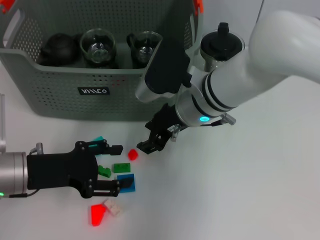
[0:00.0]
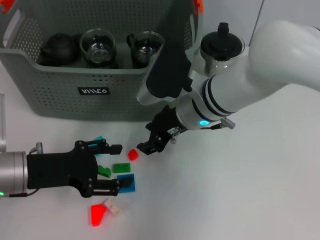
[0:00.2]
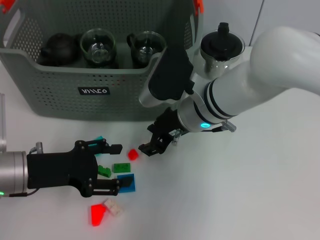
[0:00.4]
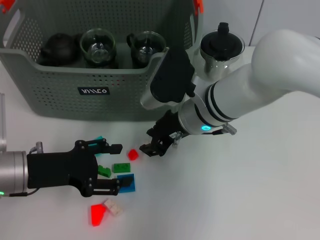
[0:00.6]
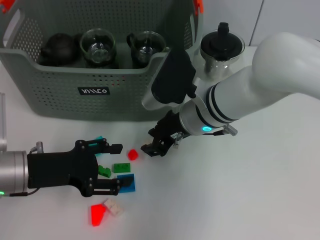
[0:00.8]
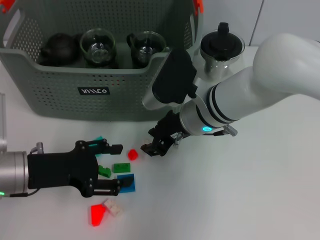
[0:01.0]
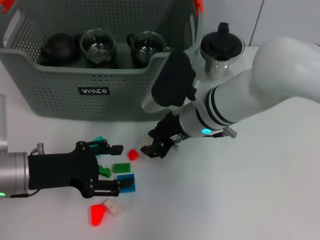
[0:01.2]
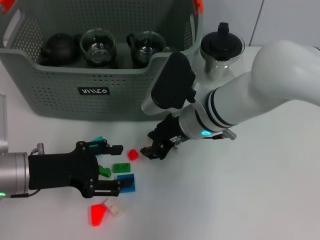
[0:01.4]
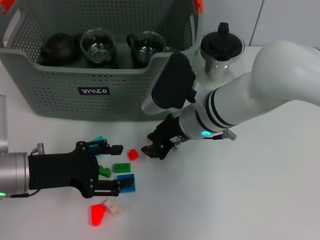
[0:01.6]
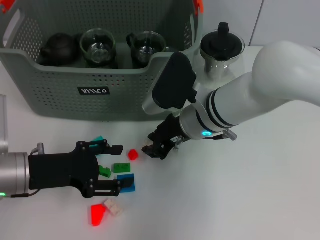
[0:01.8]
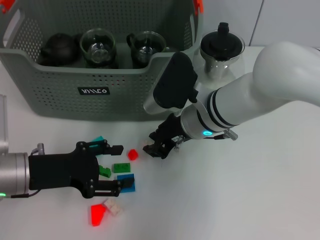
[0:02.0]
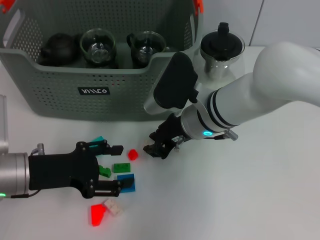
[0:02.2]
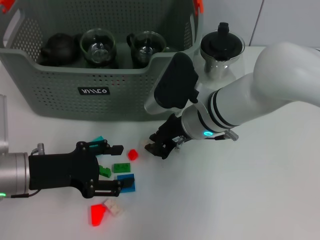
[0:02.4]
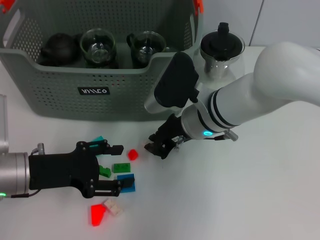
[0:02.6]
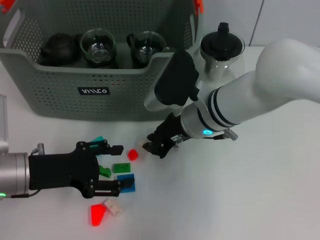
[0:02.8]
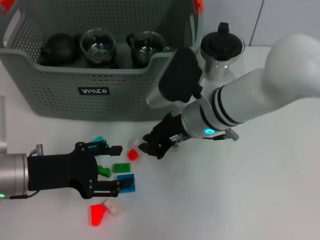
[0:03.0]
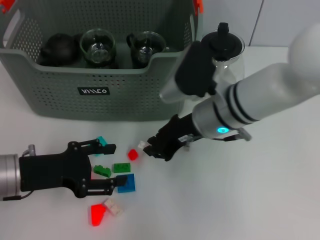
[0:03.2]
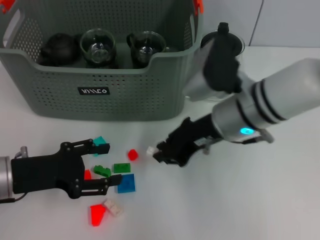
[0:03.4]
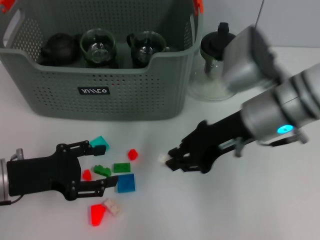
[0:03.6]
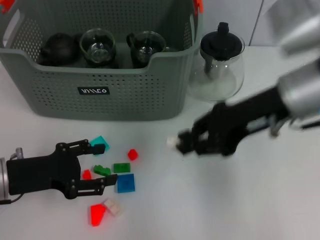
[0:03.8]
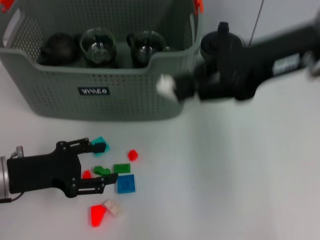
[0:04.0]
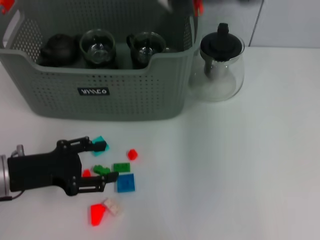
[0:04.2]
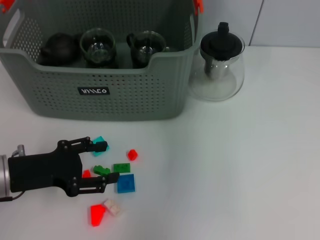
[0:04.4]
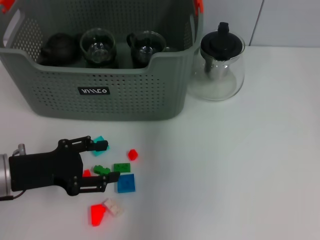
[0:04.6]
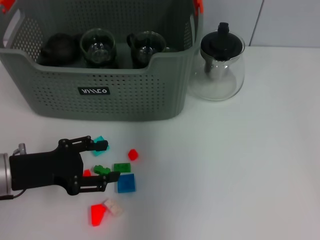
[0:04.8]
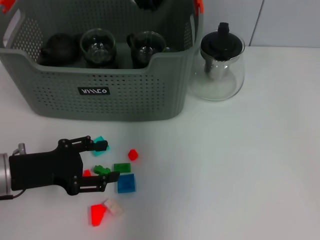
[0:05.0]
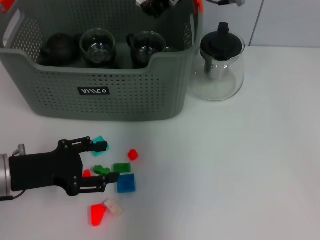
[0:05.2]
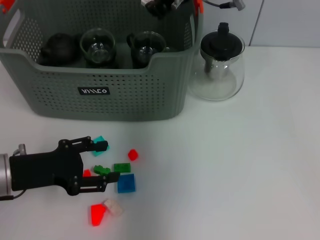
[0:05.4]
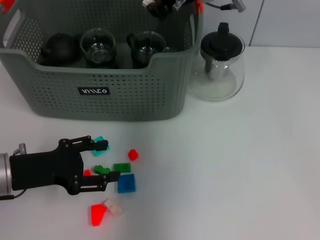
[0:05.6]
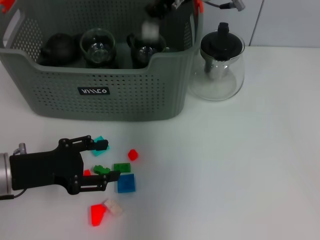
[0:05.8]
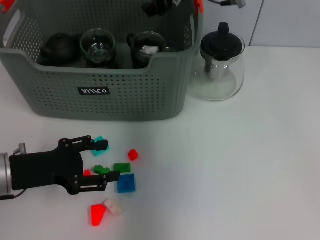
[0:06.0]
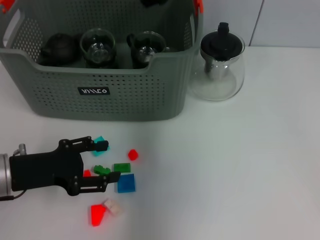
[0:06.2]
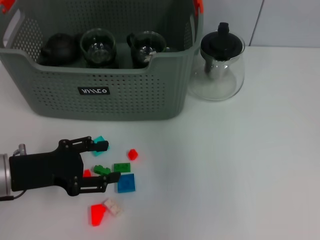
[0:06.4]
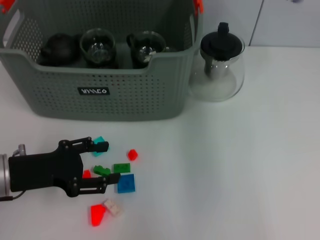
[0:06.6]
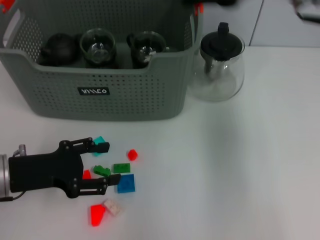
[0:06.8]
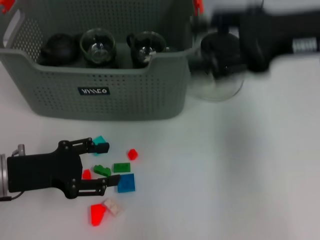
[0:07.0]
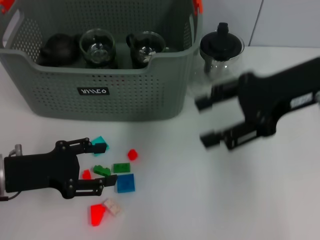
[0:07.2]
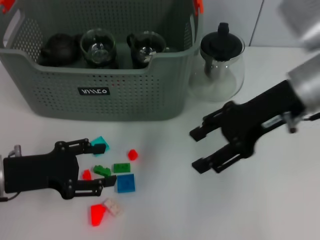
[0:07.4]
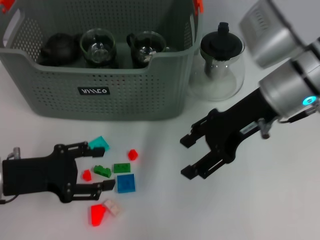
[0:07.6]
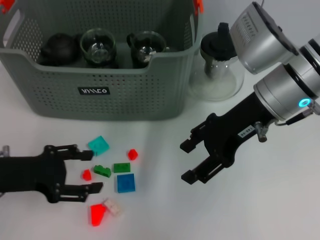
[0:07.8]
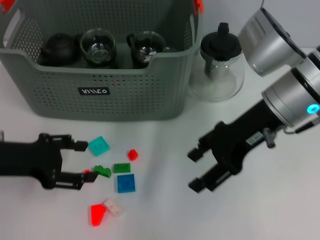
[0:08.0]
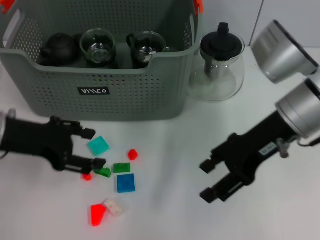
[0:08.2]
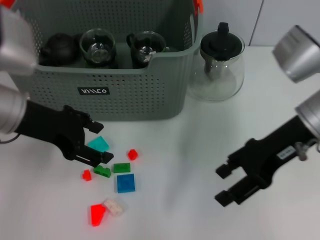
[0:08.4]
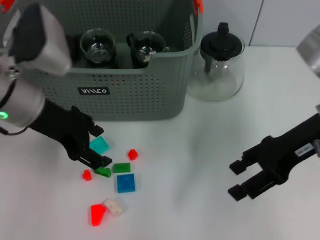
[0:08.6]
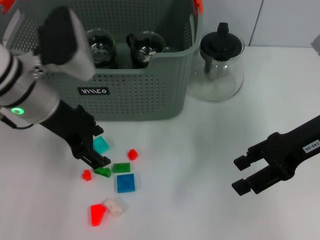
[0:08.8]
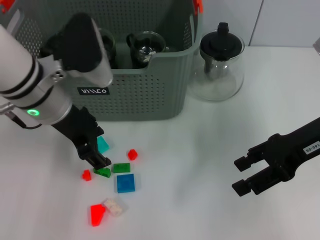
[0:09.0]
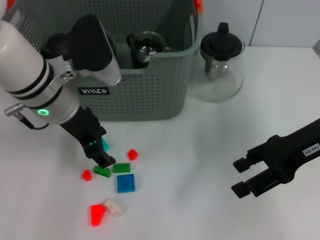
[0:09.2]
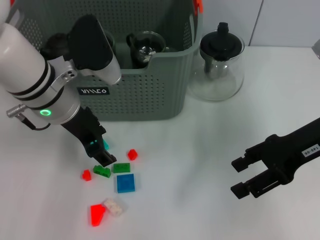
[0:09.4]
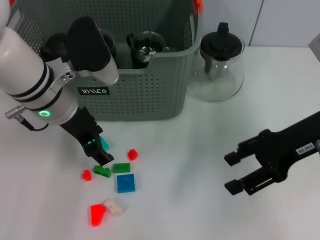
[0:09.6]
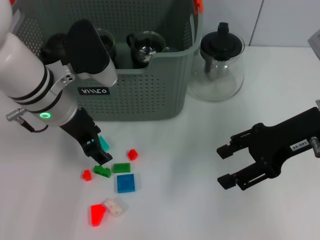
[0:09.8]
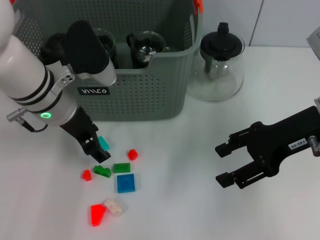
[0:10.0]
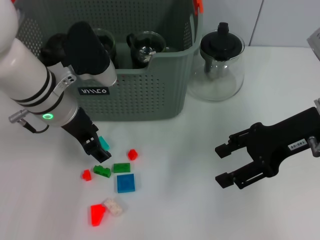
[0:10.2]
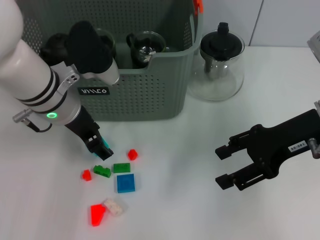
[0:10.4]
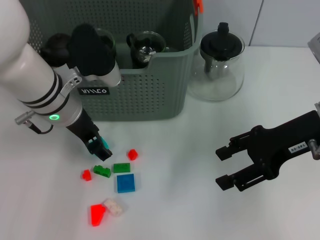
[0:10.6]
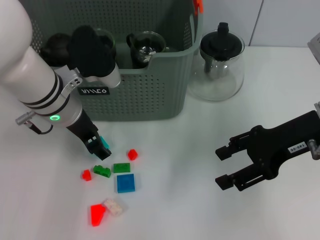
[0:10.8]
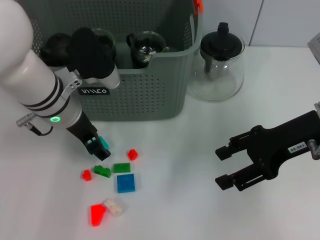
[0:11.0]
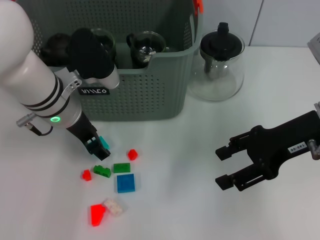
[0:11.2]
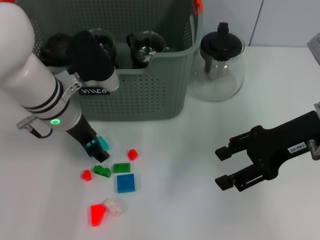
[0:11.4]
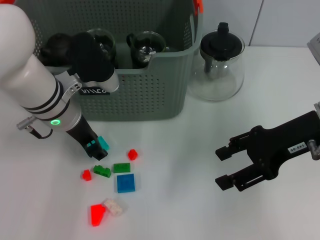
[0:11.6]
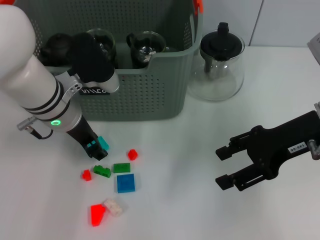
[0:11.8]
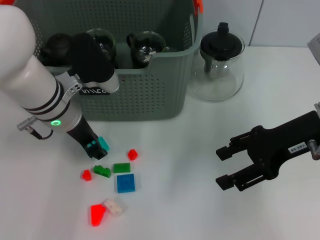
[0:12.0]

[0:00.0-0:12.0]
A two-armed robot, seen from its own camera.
Task of the whole recording: pick up the teacup on the table and place it into the storage bin, pick up the block on the table and place it into the storage bin.
Step, 0.0 to 2.6 s: Grasp the white block with right gripper.
Step, 2.8 to 6.8 s: Place the white block in the storage box with right gripper.
0.0 to 1.6 s: The grippers make only small movements.
1.6 to 3.0 s: The two grippers keep their place.
3.0 to 4.4 s: The right gripper travels upward by approximately 25 cm.
4.4 to 6.0 s: The right gripper is displaced downward, to the left and forward by approximately 15 cm.
6.0 to 7.6 s: The right gripper shifts roughly 15 cm backward, to the right and downward, and opens its fingers.
7.6 to 9.0 s: The left gripper travels to the right, upward and forward by roughly 15 cm; the right gripper goes about 10 cm to the right.
9.0 to 12.0 s: The grippers make only small movements.

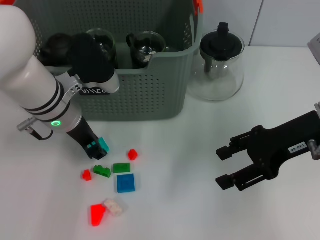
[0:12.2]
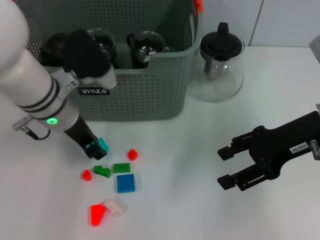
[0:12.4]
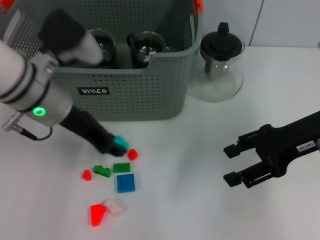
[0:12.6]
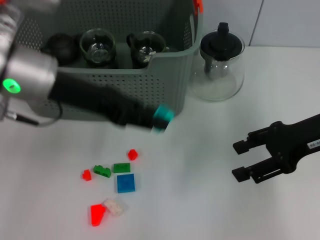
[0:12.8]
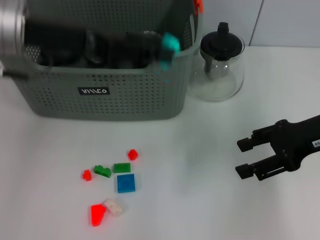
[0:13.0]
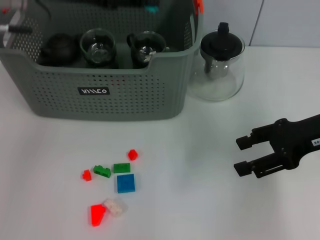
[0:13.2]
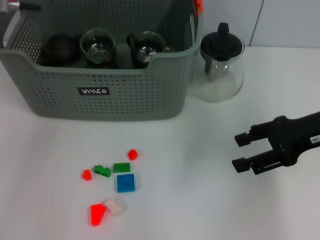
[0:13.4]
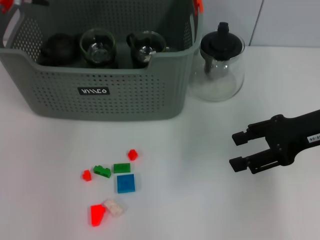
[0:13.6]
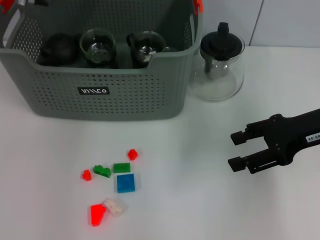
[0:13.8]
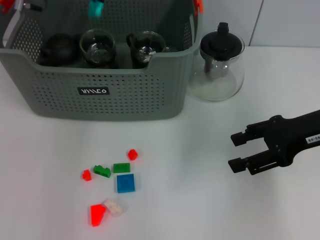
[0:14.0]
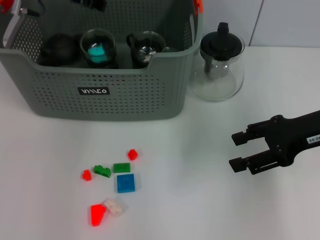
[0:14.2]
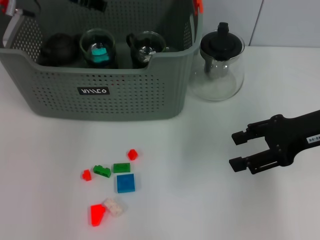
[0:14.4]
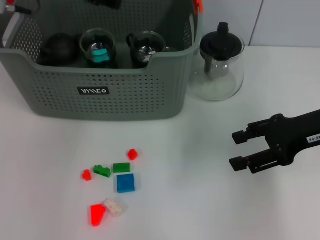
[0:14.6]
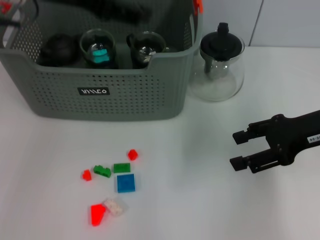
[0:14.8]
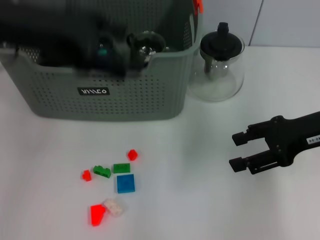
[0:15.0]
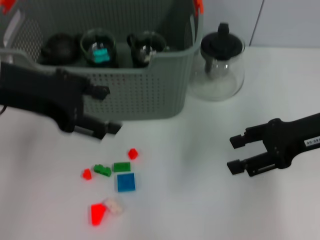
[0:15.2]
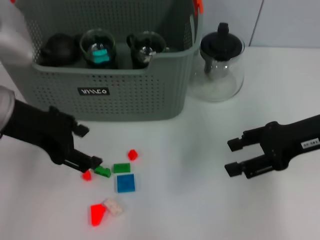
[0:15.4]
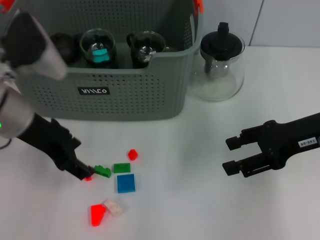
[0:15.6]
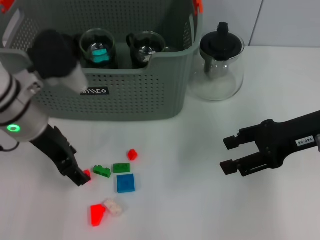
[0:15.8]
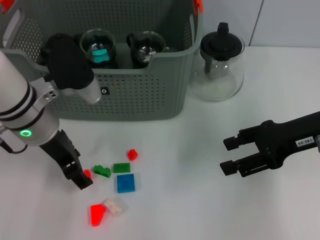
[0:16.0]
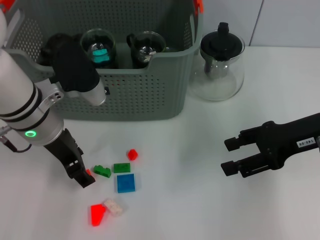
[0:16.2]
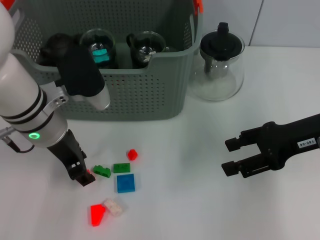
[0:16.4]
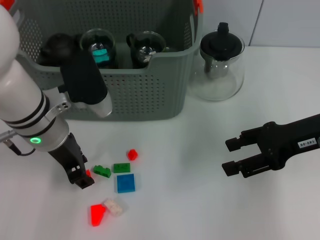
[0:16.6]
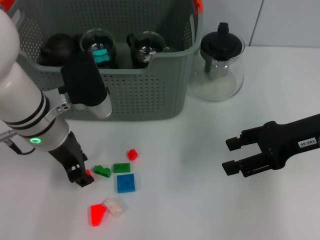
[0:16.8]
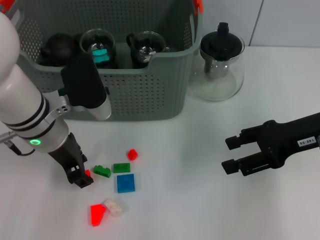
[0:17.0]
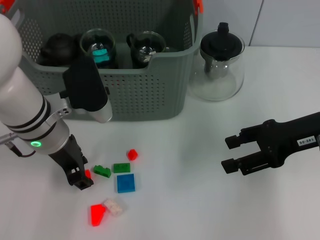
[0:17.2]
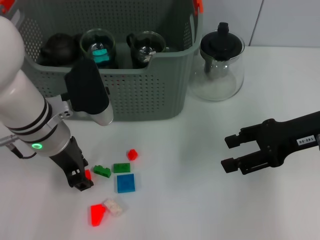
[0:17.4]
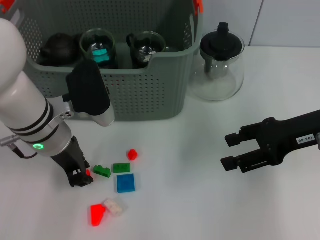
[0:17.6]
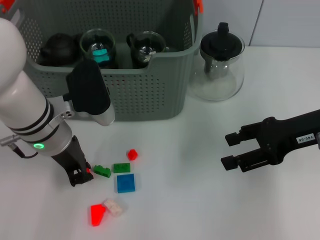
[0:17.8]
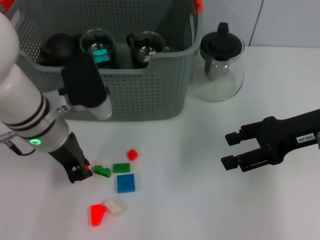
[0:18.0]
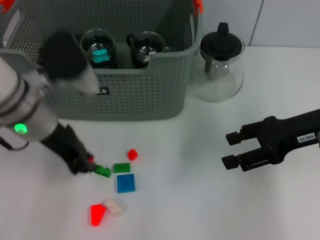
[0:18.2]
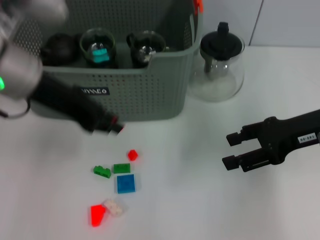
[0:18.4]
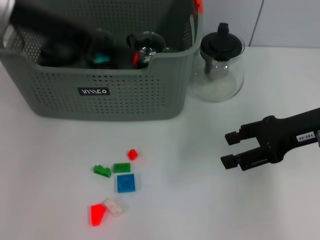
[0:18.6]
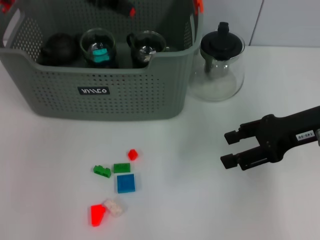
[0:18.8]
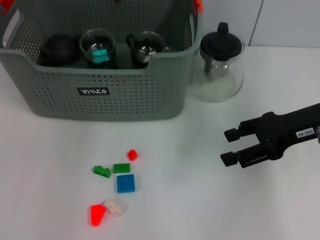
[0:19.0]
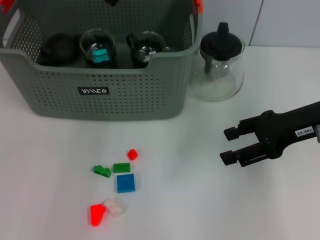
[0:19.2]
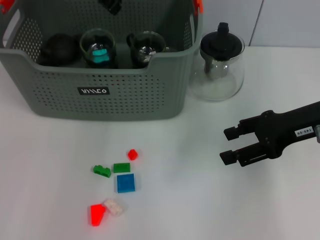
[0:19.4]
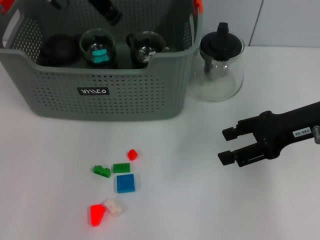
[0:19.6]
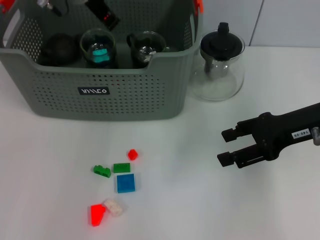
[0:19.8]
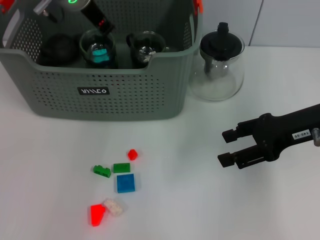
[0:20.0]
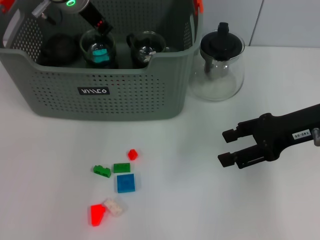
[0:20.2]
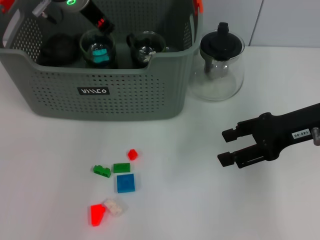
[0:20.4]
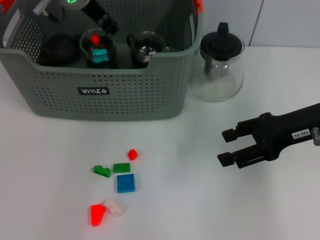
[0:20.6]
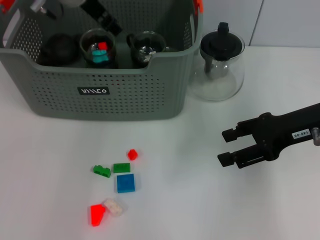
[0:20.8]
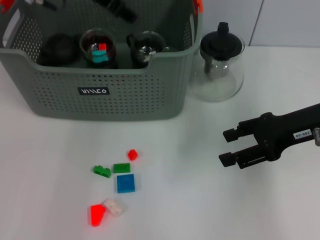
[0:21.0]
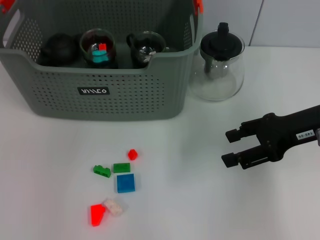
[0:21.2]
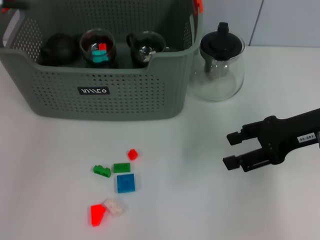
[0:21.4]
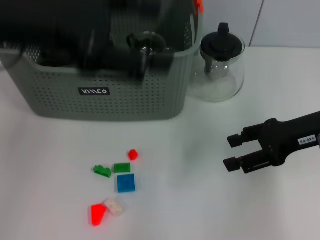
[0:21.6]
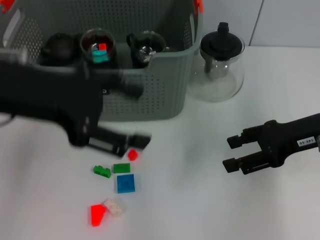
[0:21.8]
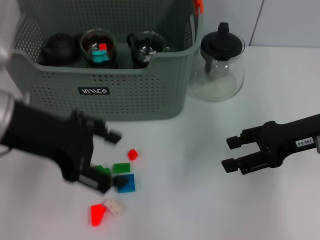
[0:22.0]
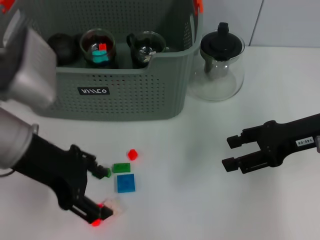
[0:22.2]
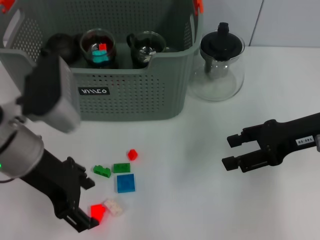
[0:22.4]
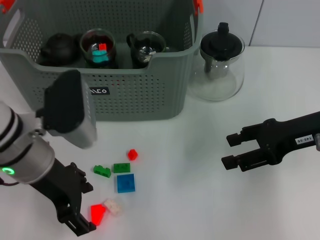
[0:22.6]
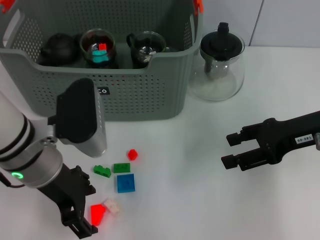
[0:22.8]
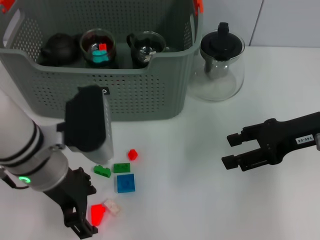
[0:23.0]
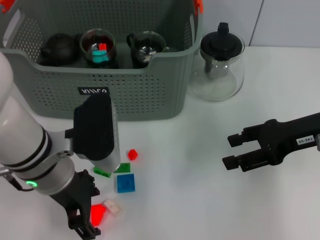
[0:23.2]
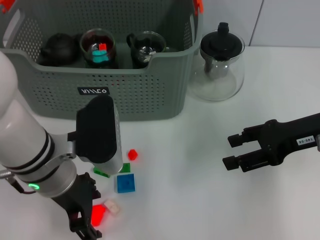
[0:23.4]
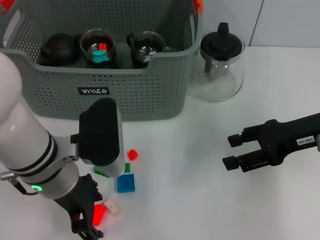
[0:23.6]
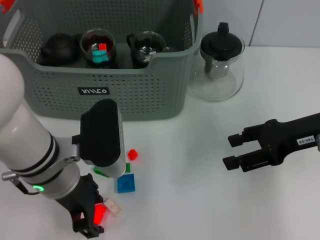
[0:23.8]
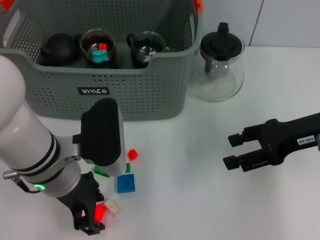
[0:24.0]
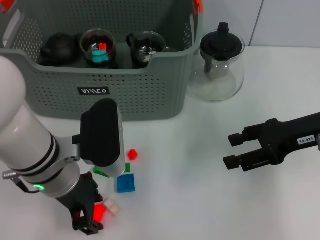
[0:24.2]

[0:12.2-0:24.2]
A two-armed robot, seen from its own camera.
Task of the whole recording: pick up the teacup on the table and place it into the storage bin, pick up the block on the table and place it into the storage bin.
Step, 12.4 to 14.2 s: Place the light blue block in the storage box with left gripper.
Step, 14.4 to 17.8 s: Grasp the orange block with left gripper.
Step, 18.0 to 21.0 s: Place the orange block in the storage box with left gripper.
12.2 to 13.8 s: The left gripper is displaced upward and forward by some 15 cm.
13.8 to 15.2 s: The left gripper moves backward, approximately 20 cm, and opens its fingers.
15.2 to 16.6 s: The left gripper heads downward and to the right, covering about 10 cm.
16.6 to 18.2 s: The left gripper closes its fingers.
18.2 to 19.8 s: The left gripper is displaced forward and upward by approximately 15 cm.
19.8 to 21.2 s: The left gripper is displaced backward and upward by approximately 10 cm, and opens up.
21.2 to 22.6 s: The left gripper moves downward and backward, about 20 cm.
22.6 to 24.2 s: The grippers make only small movements.
